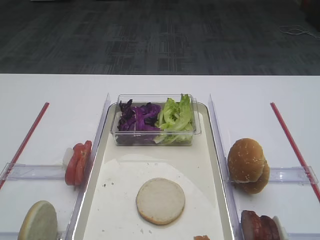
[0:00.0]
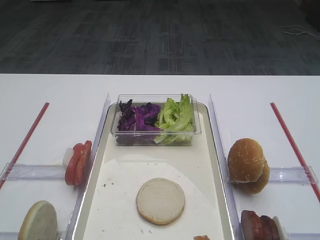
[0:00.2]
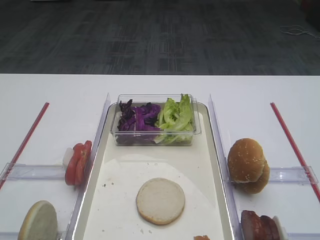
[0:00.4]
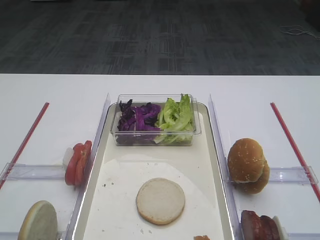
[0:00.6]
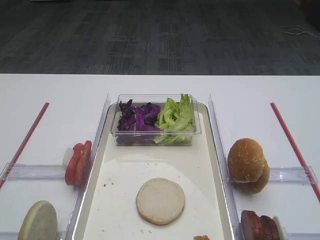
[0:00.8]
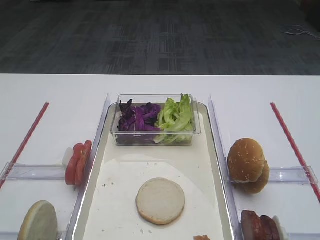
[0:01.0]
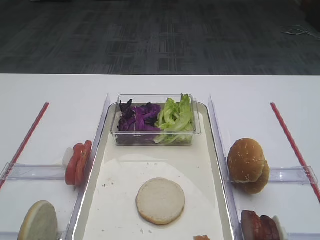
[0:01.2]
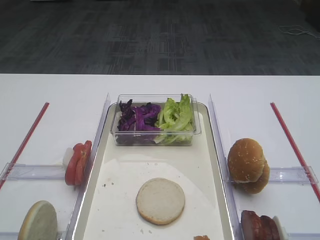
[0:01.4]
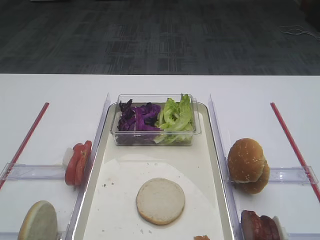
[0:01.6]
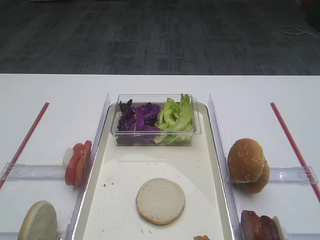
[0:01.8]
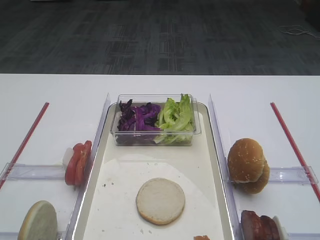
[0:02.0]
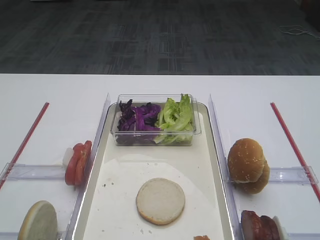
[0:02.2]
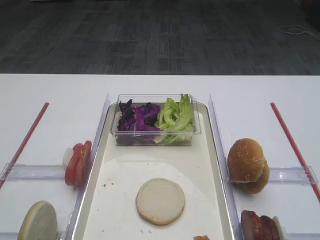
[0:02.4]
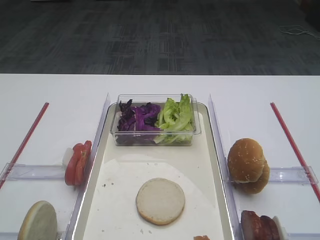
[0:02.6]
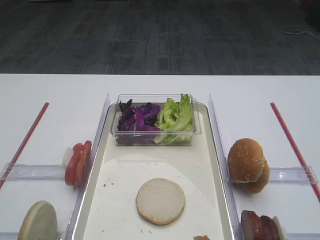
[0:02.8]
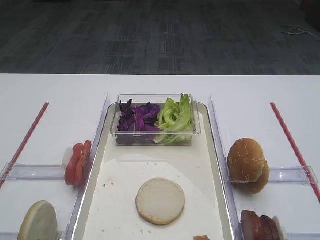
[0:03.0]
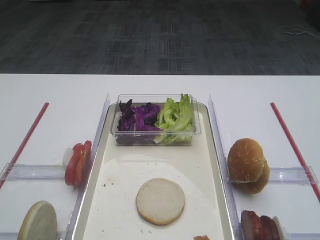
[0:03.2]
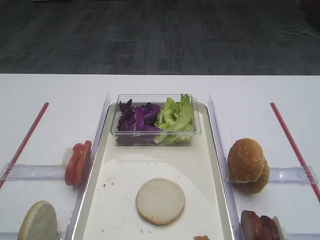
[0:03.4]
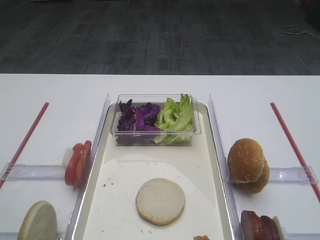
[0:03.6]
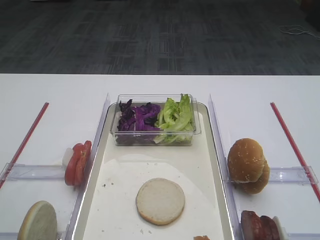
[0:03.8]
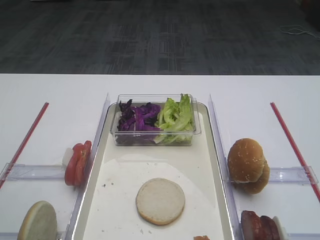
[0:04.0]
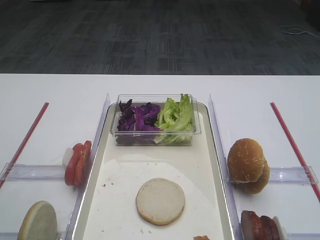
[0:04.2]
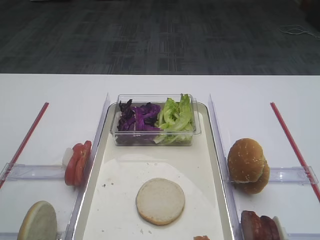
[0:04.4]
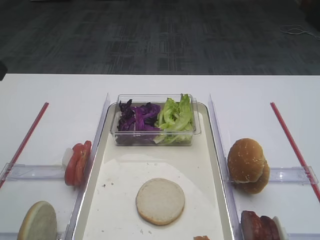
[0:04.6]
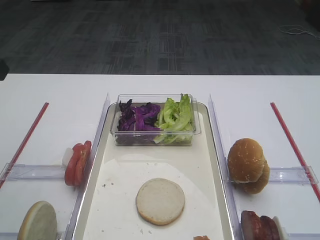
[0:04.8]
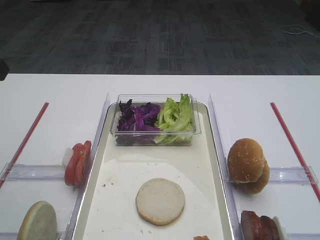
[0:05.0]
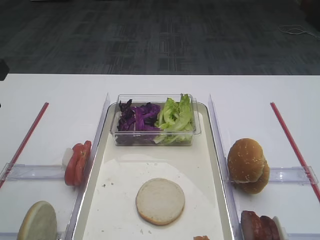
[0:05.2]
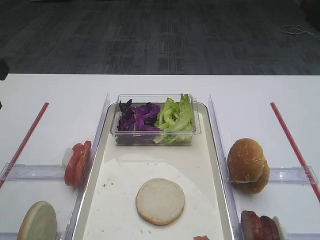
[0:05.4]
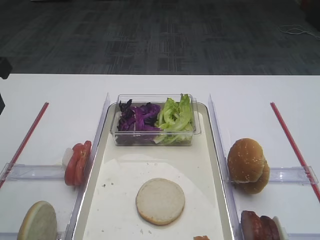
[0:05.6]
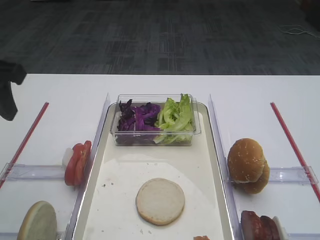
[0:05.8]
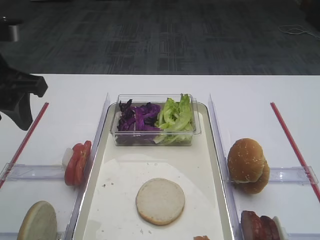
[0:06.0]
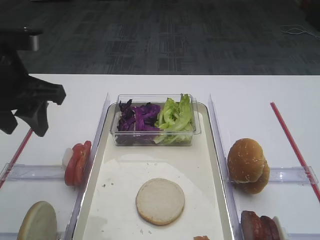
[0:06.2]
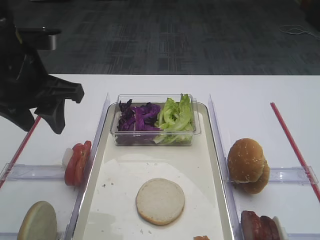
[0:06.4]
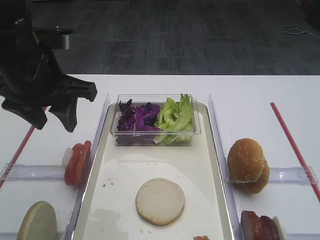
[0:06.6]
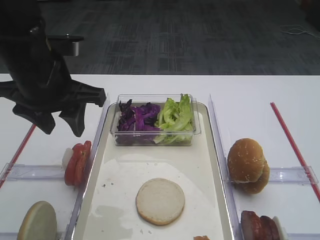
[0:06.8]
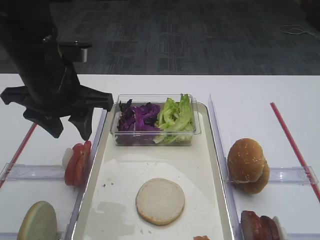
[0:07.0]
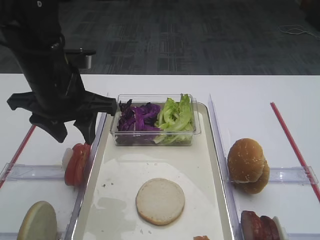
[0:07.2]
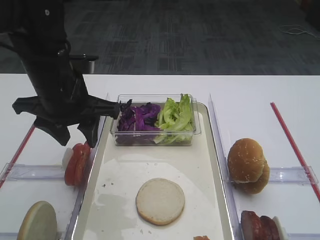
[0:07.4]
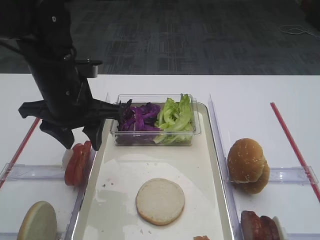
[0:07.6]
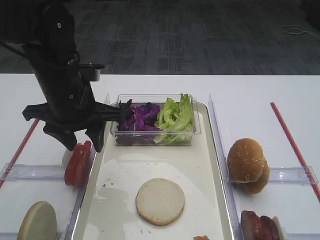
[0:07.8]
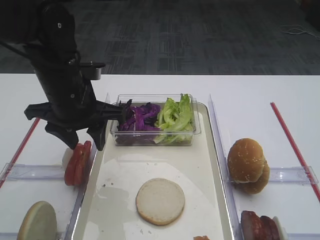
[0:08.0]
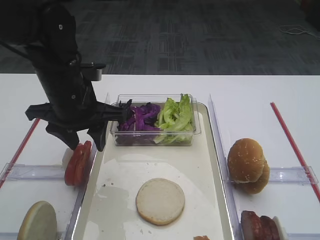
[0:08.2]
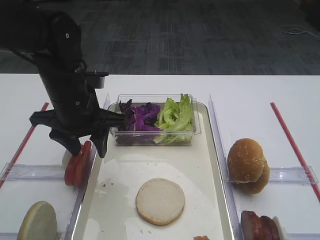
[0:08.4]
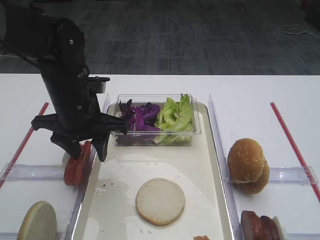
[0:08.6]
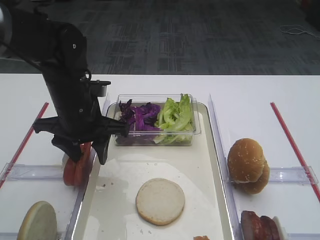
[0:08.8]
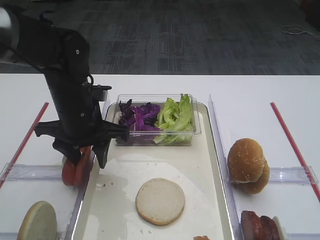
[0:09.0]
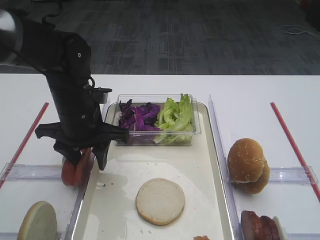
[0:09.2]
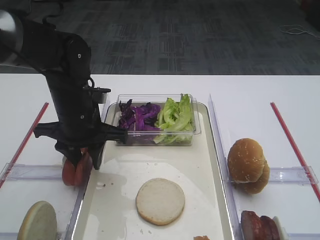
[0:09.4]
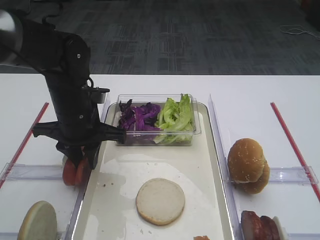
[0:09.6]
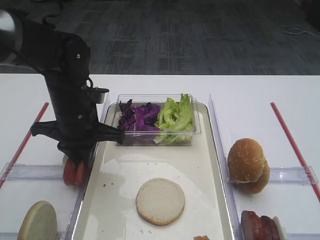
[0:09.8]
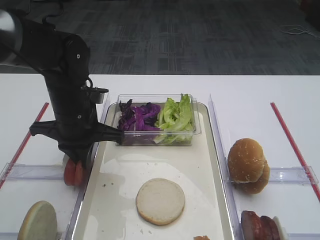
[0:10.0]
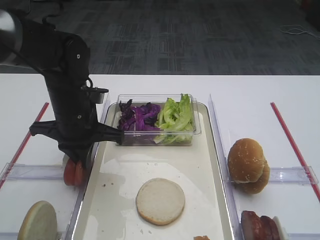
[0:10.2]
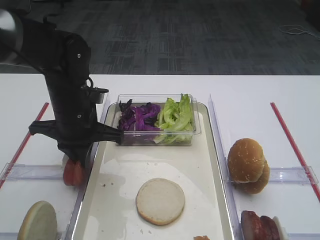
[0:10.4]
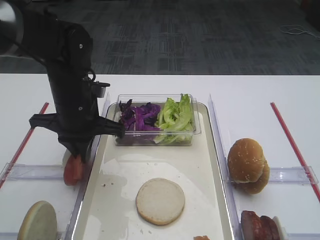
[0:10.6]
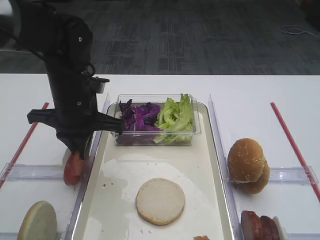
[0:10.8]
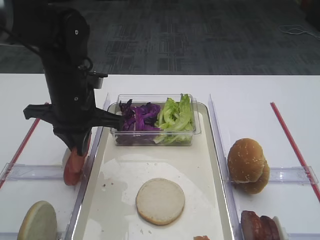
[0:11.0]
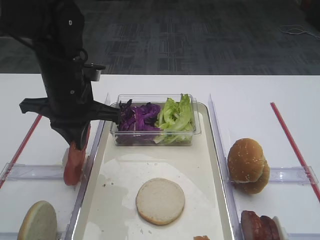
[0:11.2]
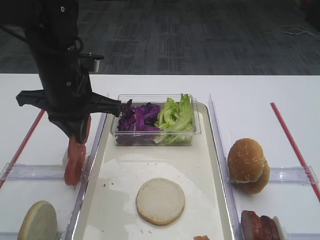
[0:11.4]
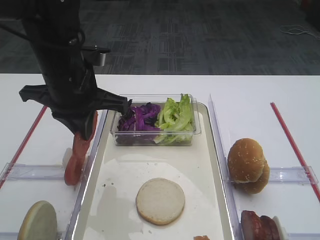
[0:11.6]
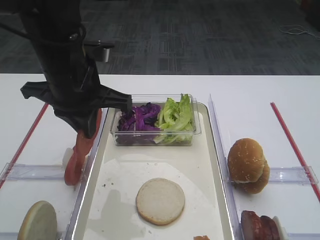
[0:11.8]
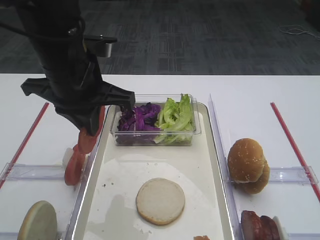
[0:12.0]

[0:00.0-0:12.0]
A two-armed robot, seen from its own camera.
Step, 0:00.0 to 0:10.8: Pick up the tomato slice with the left gripper.
0:04.4 to 0:06.0: The left gripper moves some 5 cm.
0:06.0 to 0:07.6: The left gripper goes about 10 cm to the right and downward.
0:07.6 to 0:09.0: The left gripper goes about 5 cm downward.
0:09.0 to 0:10.4: The left gripper closes up.
0:10.4 to 0:12.0: The left gripper heads upward, covering approximately 10 cm.

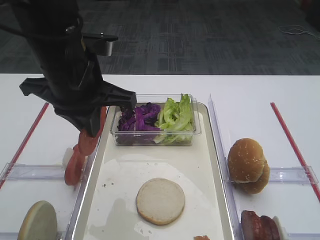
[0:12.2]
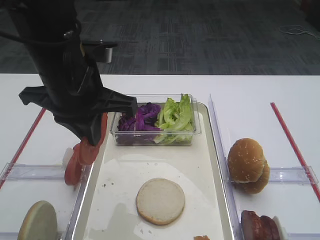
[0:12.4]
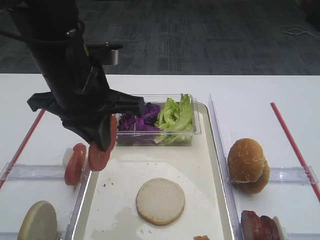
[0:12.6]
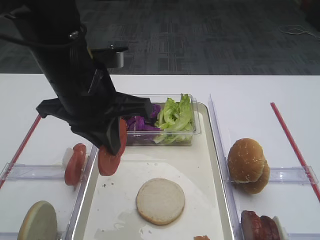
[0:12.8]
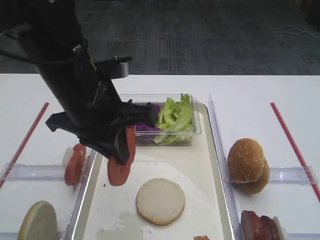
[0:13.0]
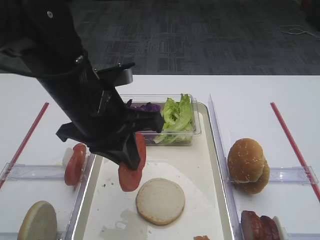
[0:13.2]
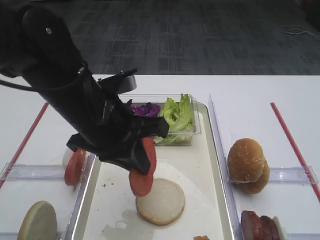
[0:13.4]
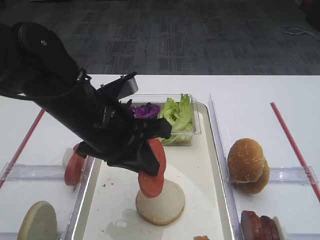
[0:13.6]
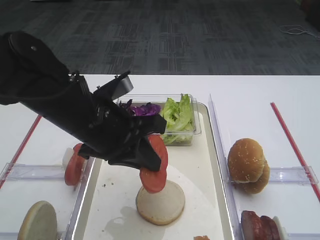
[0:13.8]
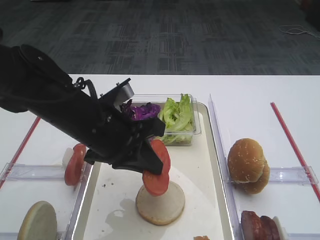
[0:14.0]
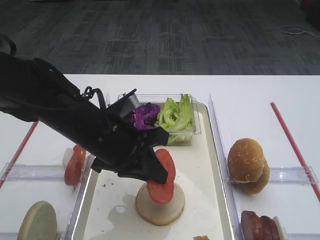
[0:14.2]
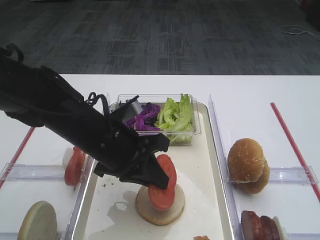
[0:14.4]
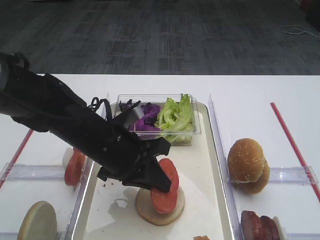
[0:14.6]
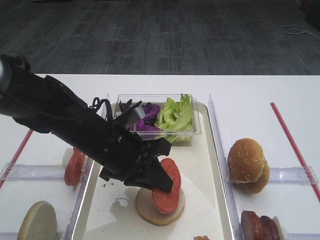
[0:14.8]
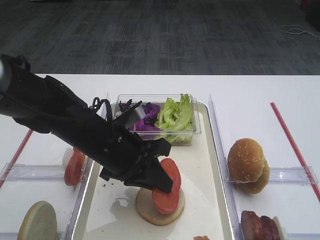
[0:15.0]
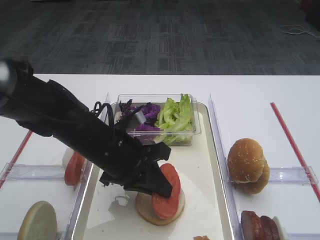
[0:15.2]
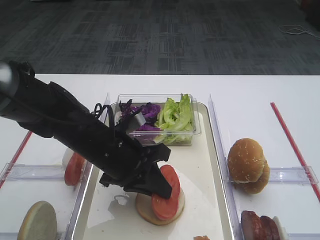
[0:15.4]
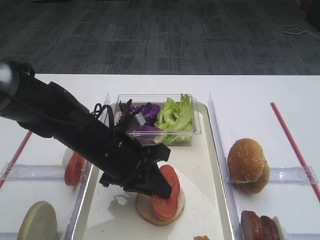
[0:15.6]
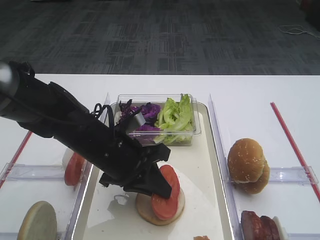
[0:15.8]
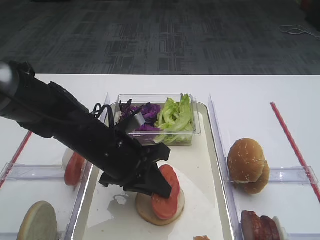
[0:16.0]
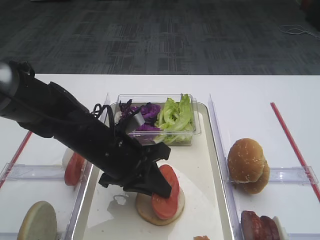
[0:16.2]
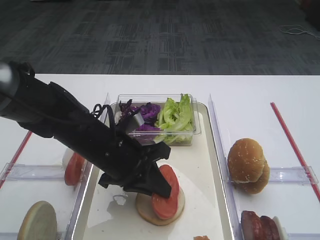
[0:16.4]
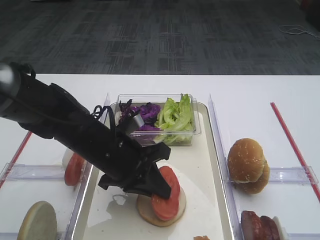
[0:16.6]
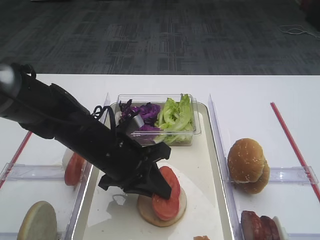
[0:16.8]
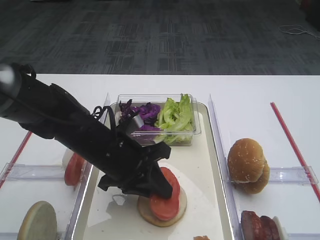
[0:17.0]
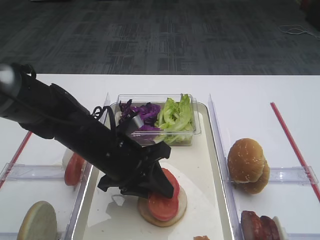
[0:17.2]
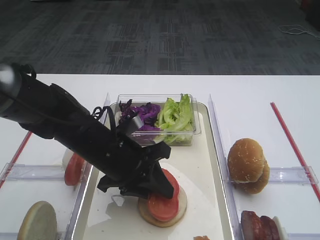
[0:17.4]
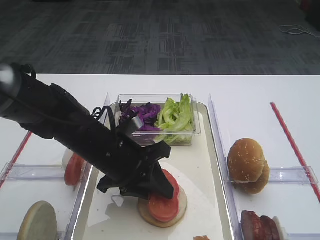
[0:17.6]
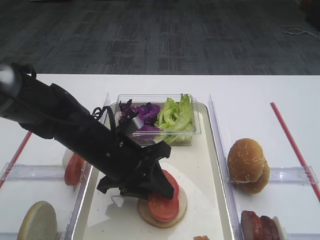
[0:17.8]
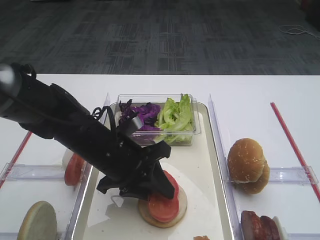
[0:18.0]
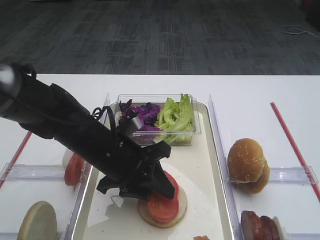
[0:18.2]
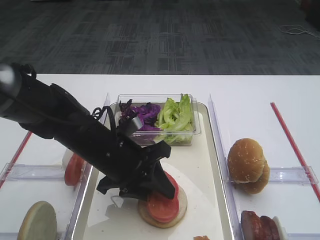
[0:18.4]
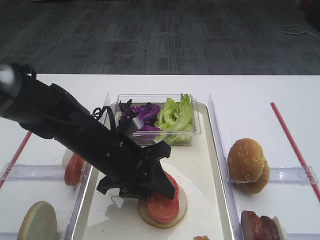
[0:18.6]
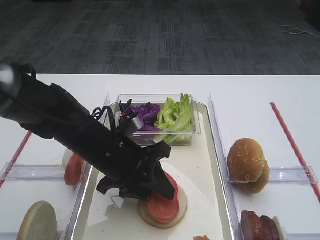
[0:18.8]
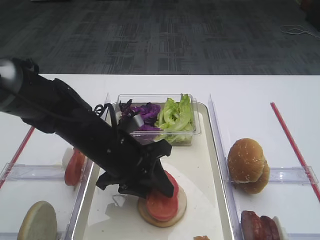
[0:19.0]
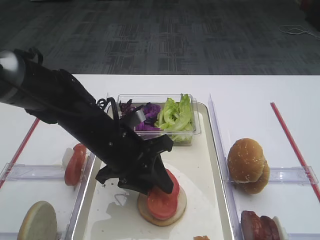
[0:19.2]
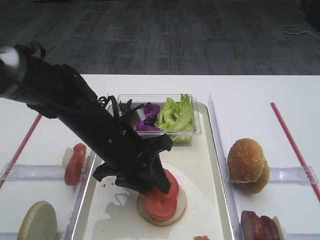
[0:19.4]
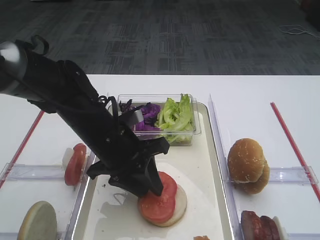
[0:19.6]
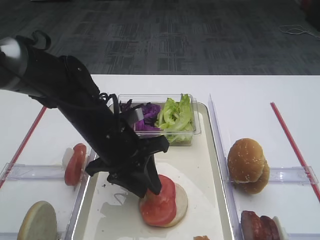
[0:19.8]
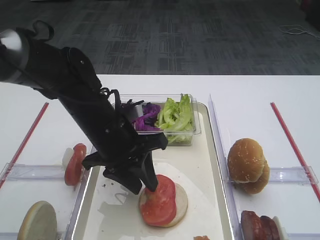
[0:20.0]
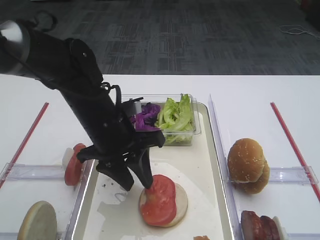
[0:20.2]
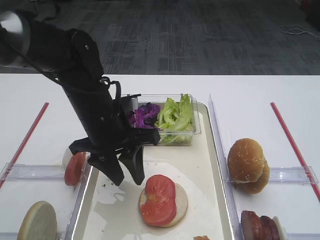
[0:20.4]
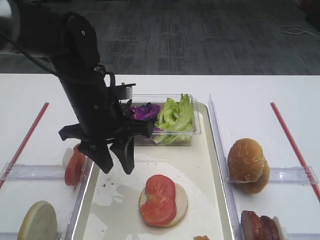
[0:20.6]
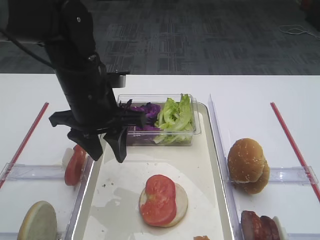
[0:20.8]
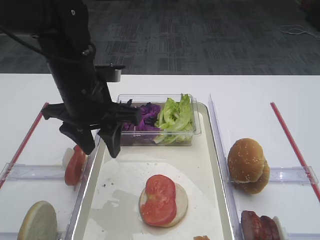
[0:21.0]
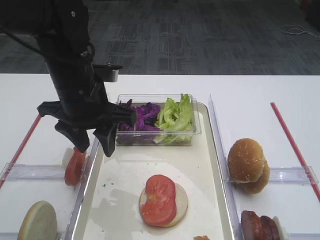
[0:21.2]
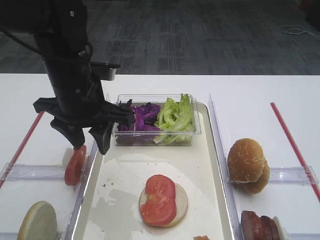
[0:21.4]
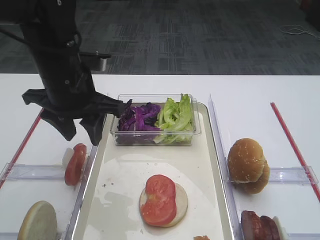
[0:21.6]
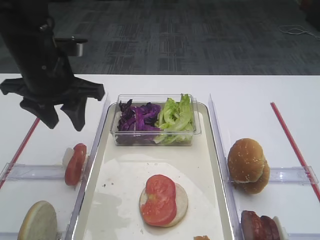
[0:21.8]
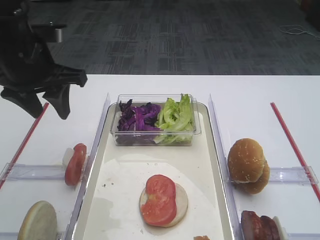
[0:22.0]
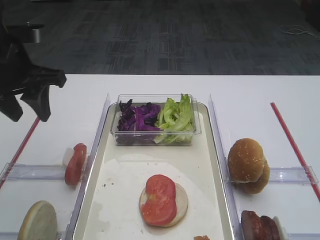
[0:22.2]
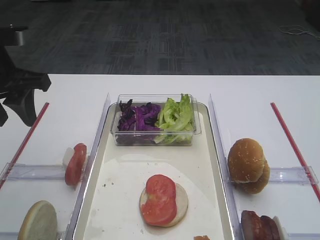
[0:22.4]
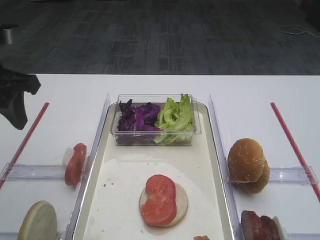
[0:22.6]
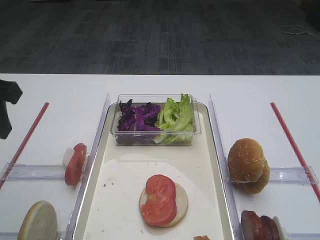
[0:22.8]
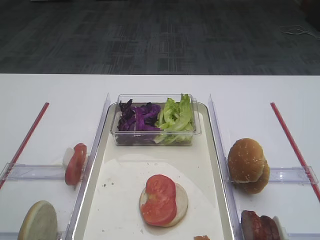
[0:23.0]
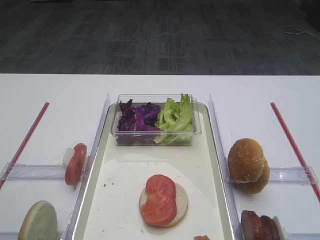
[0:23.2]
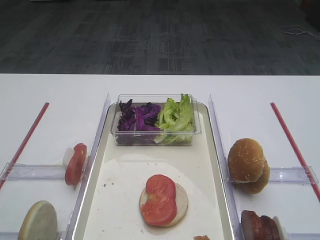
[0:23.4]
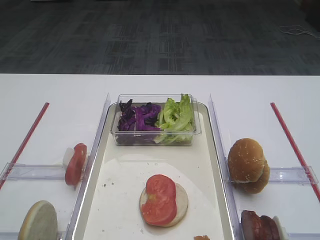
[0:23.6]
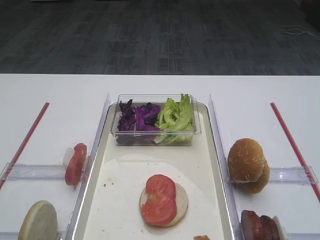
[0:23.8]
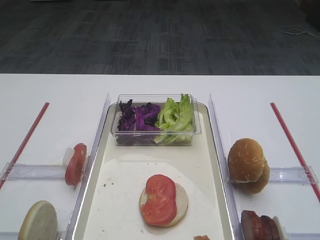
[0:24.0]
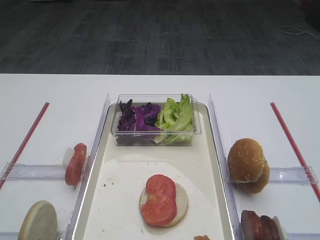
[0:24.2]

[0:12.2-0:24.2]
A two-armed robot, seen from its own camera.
Step, 0:12.2 to 0:20.2: Place the tomato slice on the bread slice with the left gripper.
0:12.2 to 0:13.8: The left gripper heads downward, covering approximately 5 cm.
0:13.8 to 0:15.2: The left gripper travels downward by approximately 5 cm.
0:15.2 to 0:16.6: Neither gripper changes place.
0:16.6 to 0:18.2: The left gripper opens up.
0:18.2 to 0:19.8: The grippers make only small movements.
0:19.8 to 0:21.2: The left gripper moves upward, some 5 cm, and opens.
0:21.2 to 0:22.6: The left gripper moves to the left and upward, approximately 15 cm.
0:22.6 to 0:24.2: The left gripper shifts some 25 cm backward.
